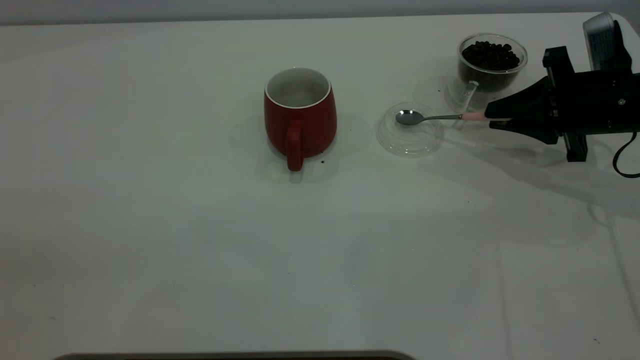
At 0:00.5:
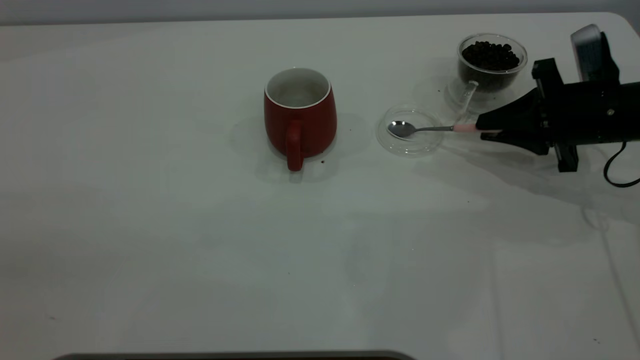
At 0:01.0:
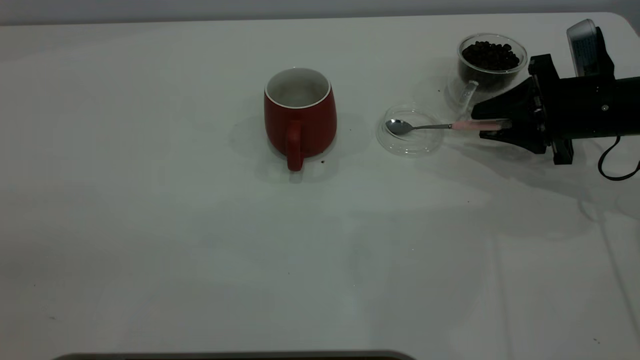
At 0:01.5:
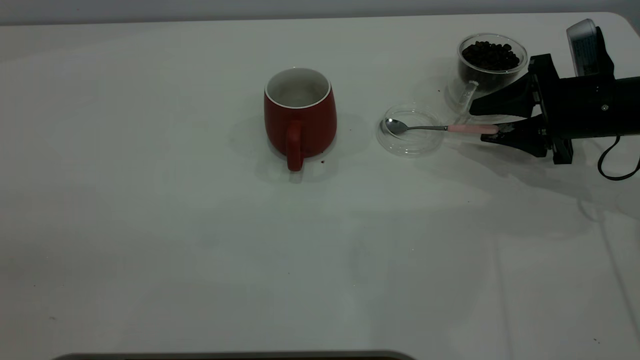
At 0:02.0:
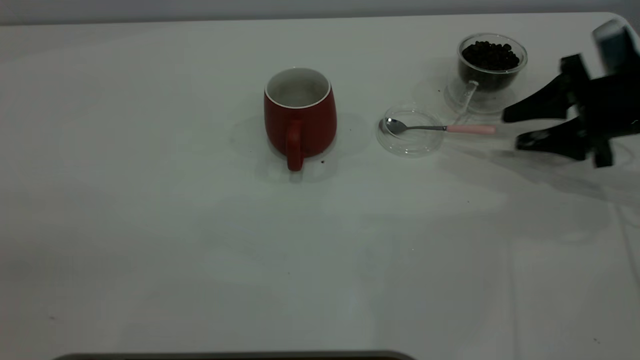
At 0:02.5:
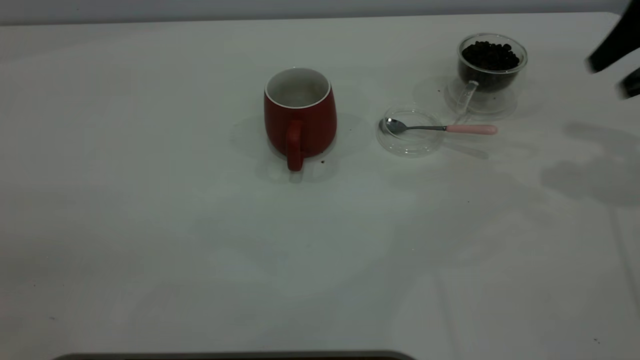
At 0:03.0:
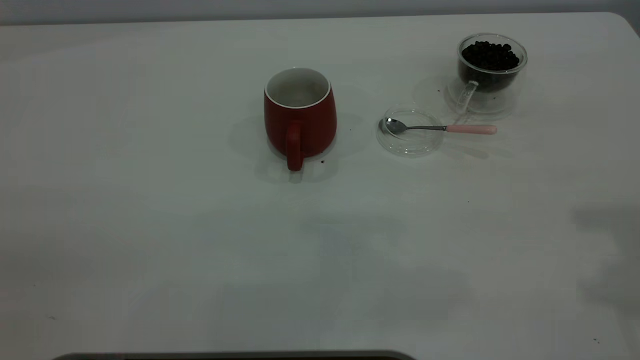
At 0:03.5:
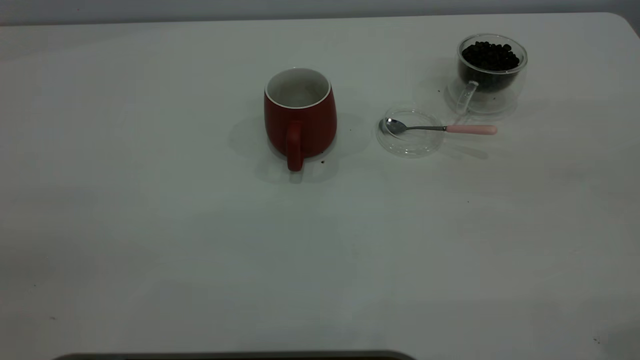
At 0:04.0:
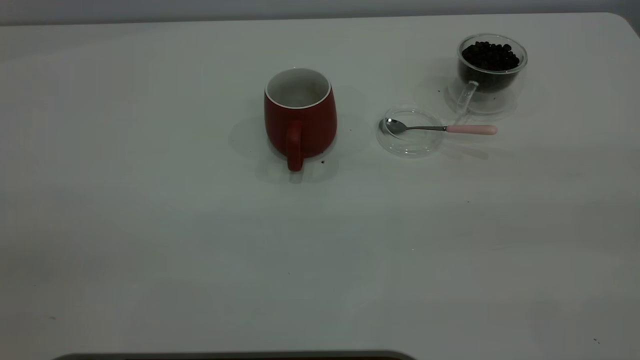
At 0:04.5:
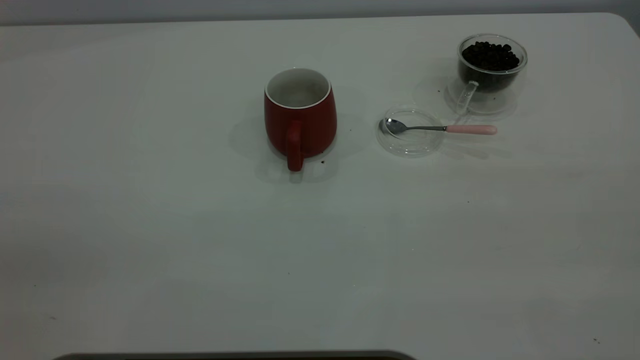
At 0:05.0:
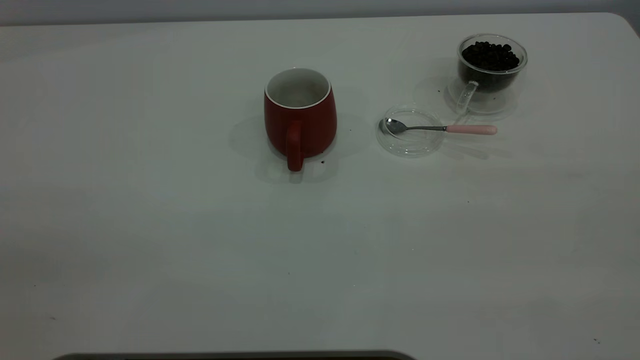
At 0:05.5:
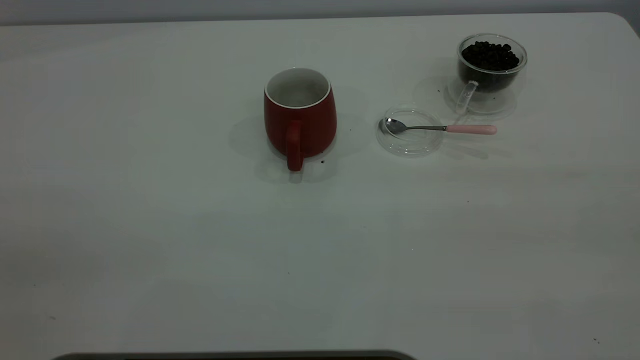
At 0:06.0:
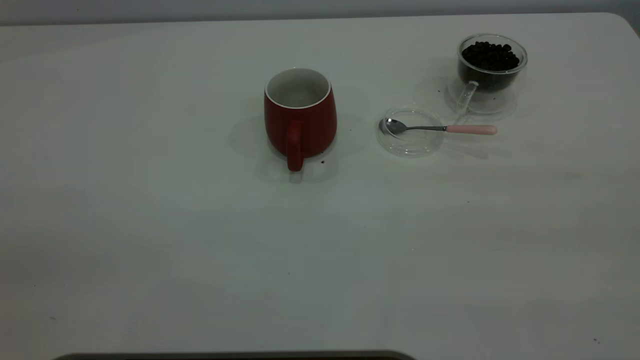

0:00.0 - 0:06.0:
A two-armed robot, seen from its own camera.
Task of the whole recording: the left gripper place the red cup in the center of the table, the right gripper take the pink spoon from the cup lid and scoop out the coffee beans from the coffee cup and put them into the red cup, the right gripper put the spoon back into the cup lid.
Step, 0:00.0 - 0:02.0: Place the spoon back in its original place.
0:00.0 - 0:02.0: The right gripper opens up.
0:02.0 - 0:04.0: The right gripper moves backward and upward, roughly 40 cm.

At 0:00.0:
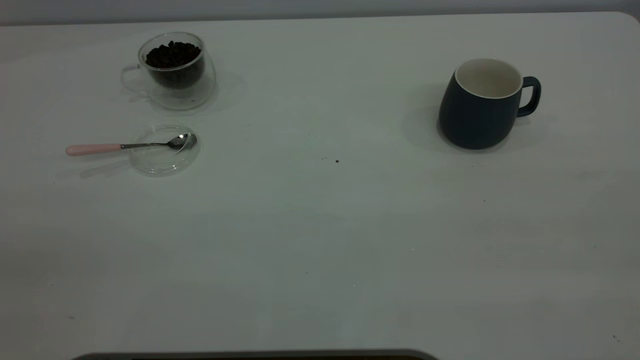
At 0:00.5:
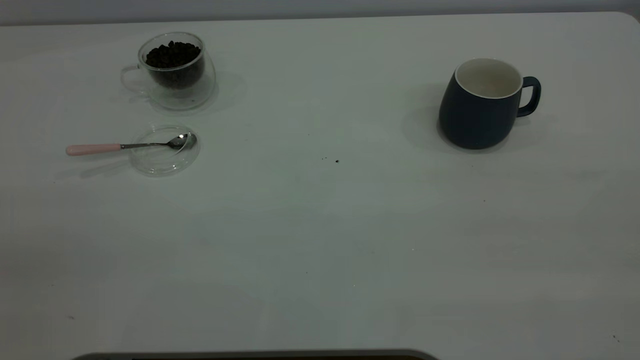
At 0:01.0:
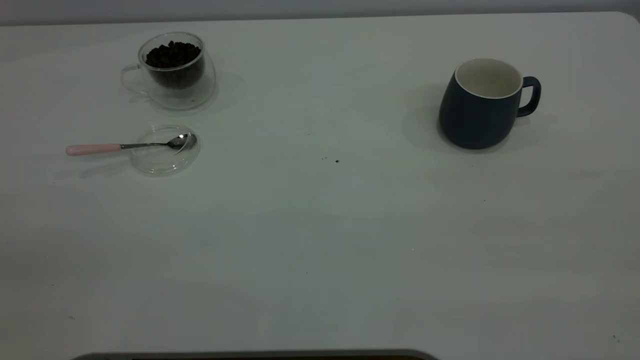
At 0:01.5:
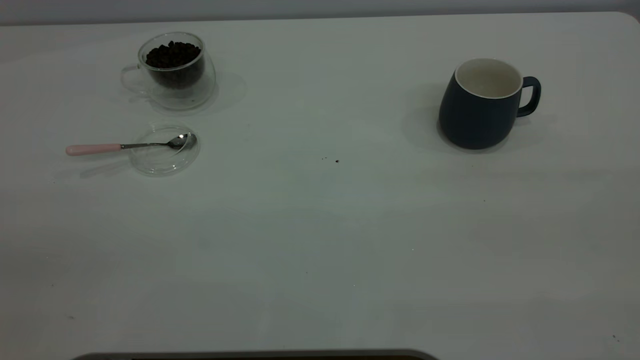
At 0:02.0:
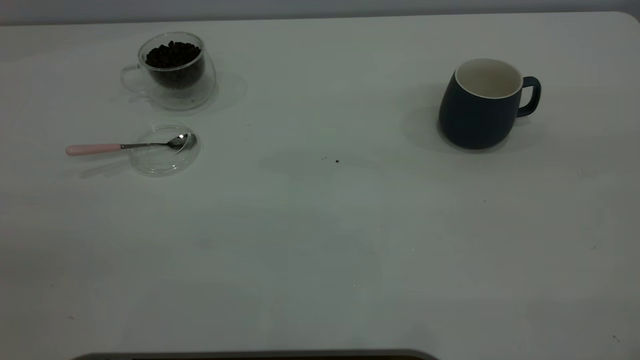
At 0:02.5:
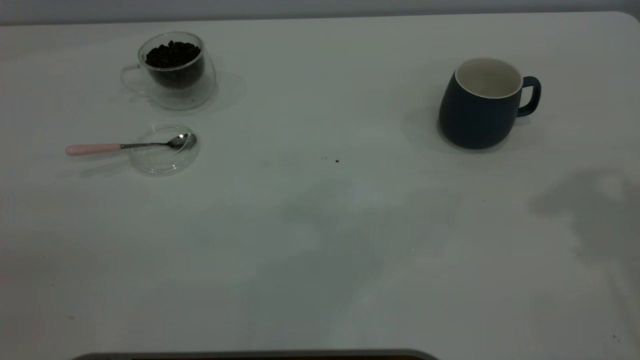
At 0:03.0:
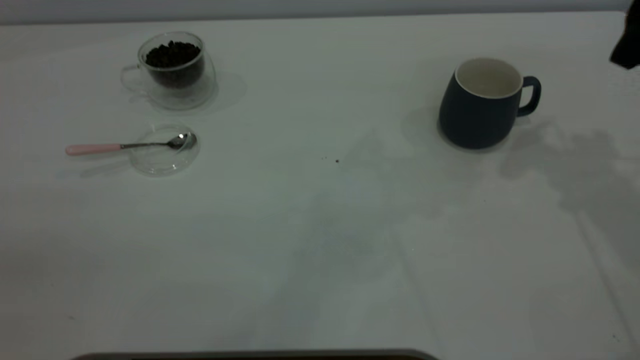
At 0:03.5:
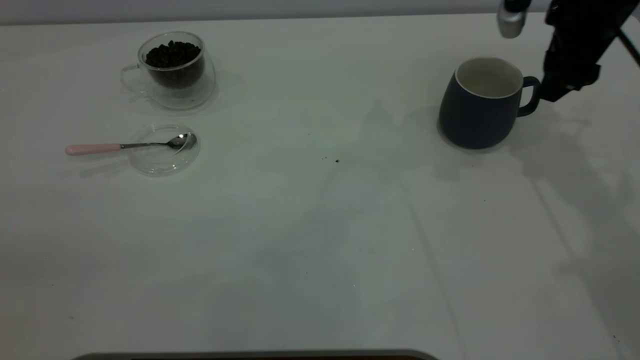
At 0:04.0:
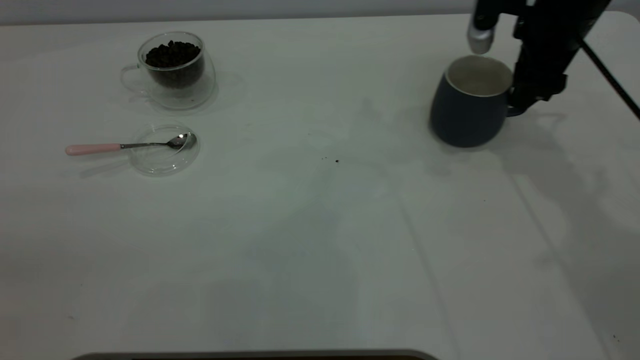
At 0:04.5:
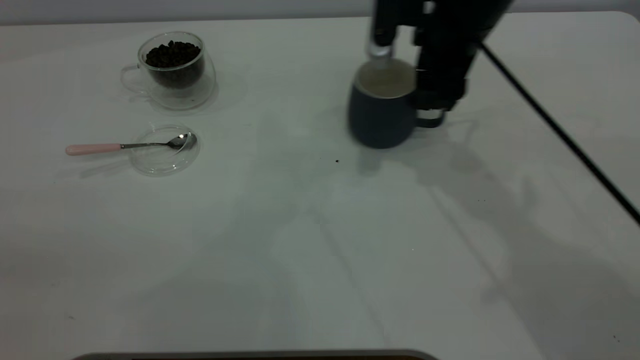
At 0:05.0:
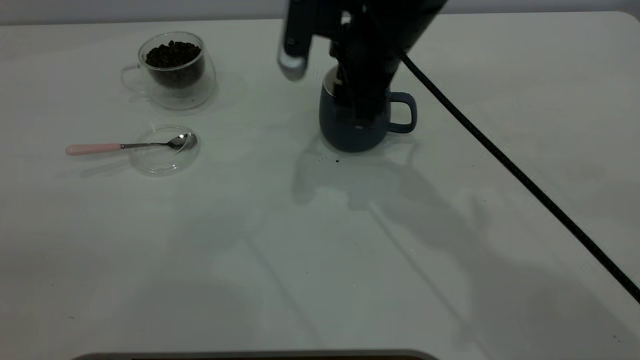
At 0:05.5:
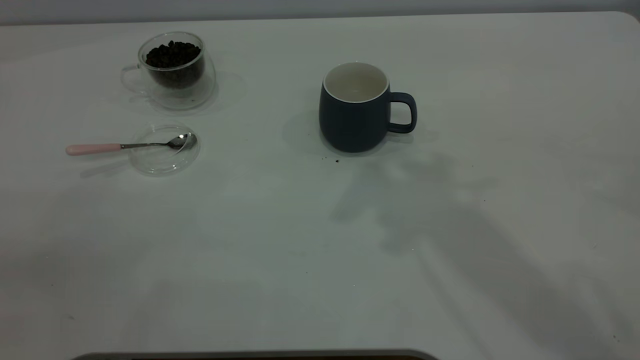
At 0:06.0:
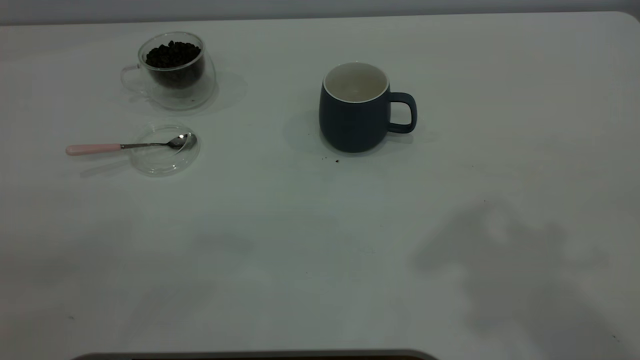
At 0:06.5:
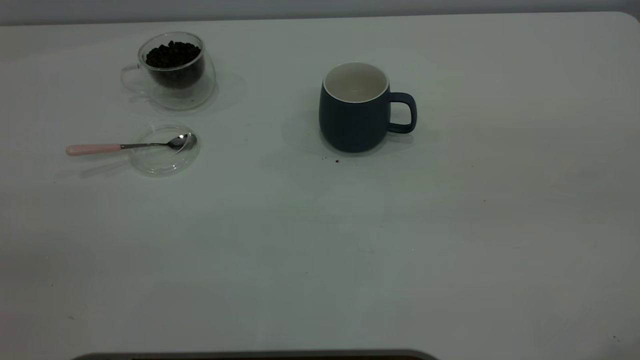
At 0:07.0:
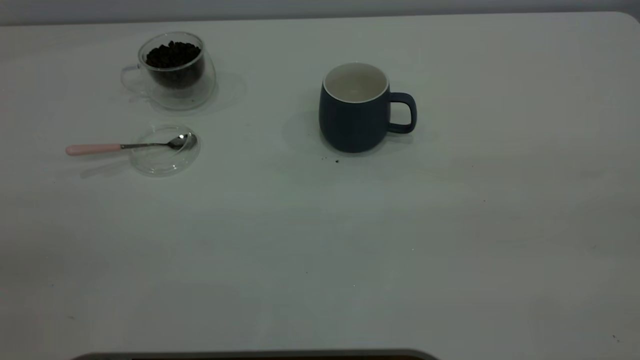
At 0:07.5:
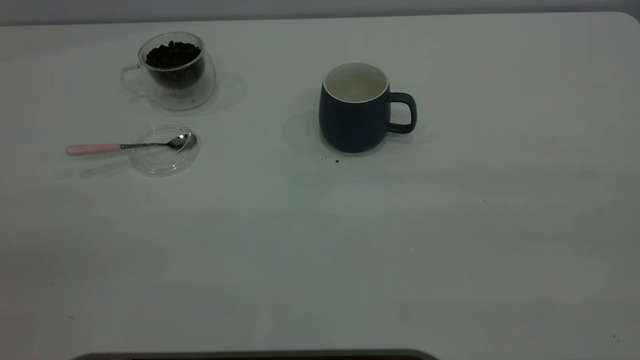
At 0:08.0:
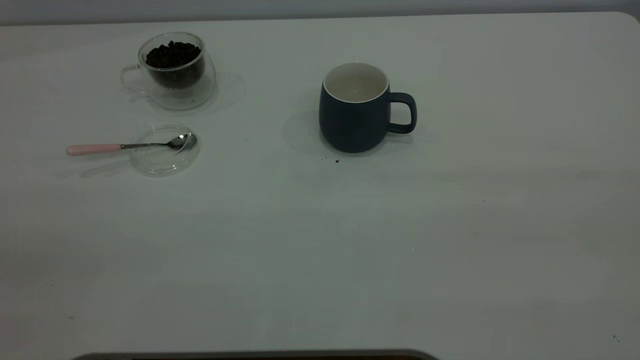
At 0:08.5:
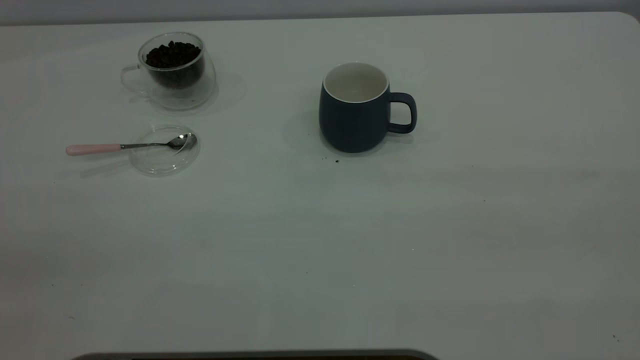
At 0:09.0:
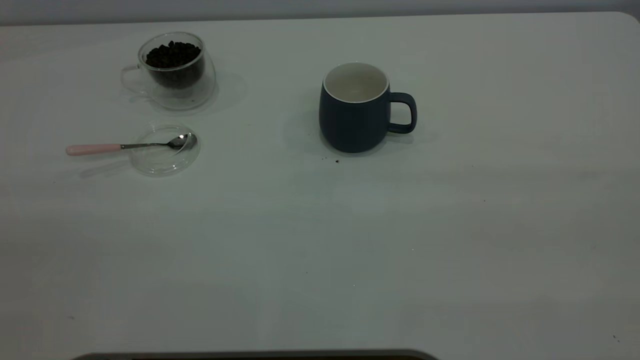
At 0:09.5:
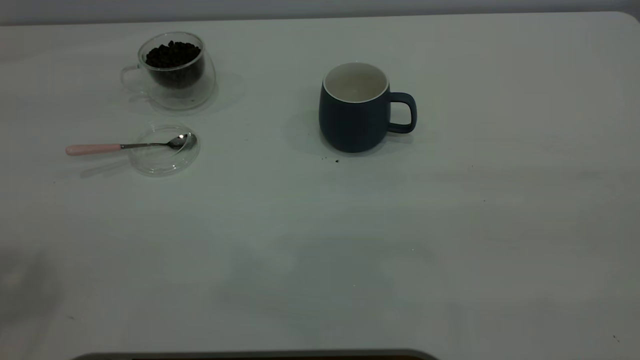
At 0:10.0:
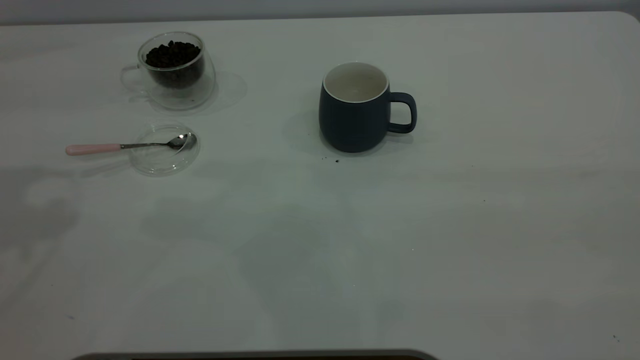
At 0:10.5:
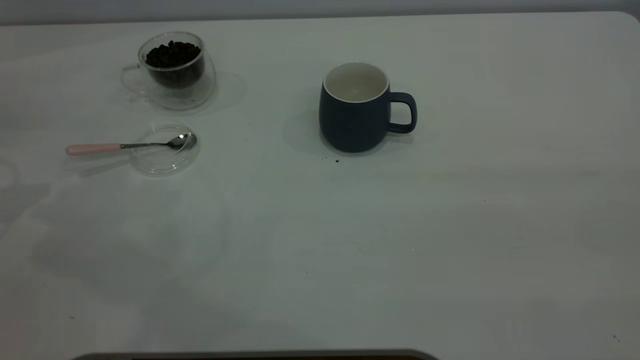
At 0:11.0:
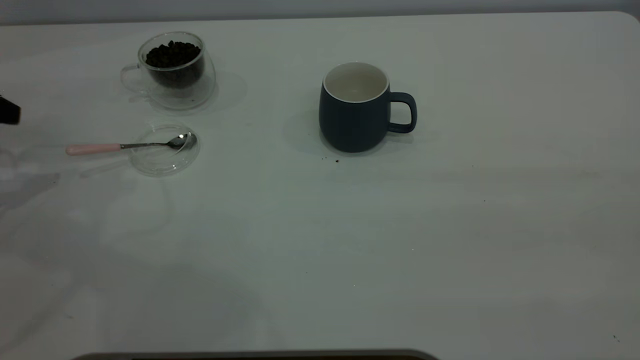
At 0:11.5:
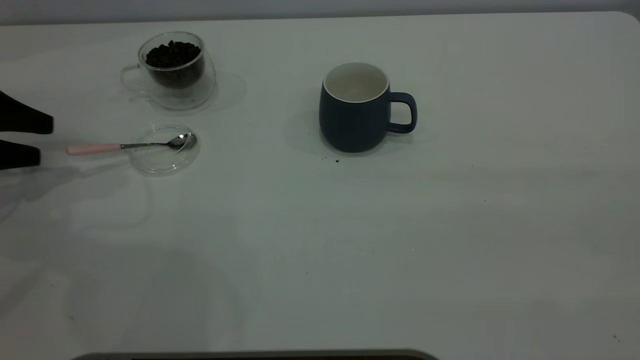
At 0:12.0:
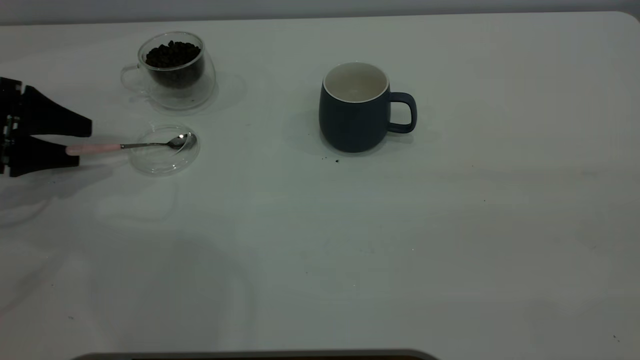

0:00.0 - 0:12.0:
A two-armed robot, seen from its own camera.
Task of the whole recording: the right gripper place the grey cup in the center of the table, the left gripper take the pink spoon from the cup lid and scoop out the coffee beans from the coffee cup and put them into the grey cup, the left gripper put the spoon back into the cup lid.
Step, 0:00.0 - 0:05.0: Move the cup to the center of view.
0:02.0 - 0:04.0: The right gripper heads forward and downward, covering some 40 cm.
0:04.0 - 0:06.0: The right gripper moves upward and backward, about 40 cm.
0:10.0 - 0:12.0: The left gripper heads downward, covering some 25 cm.

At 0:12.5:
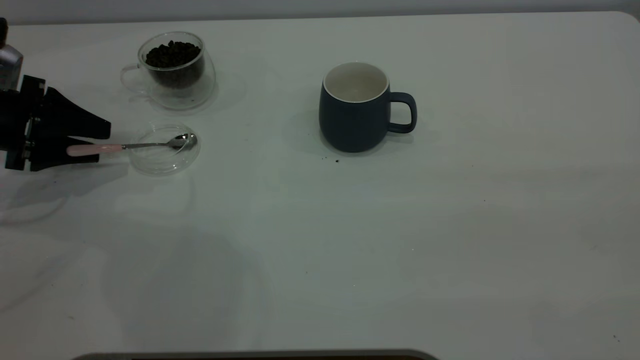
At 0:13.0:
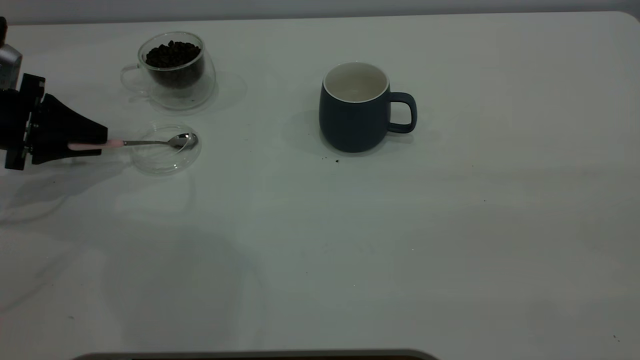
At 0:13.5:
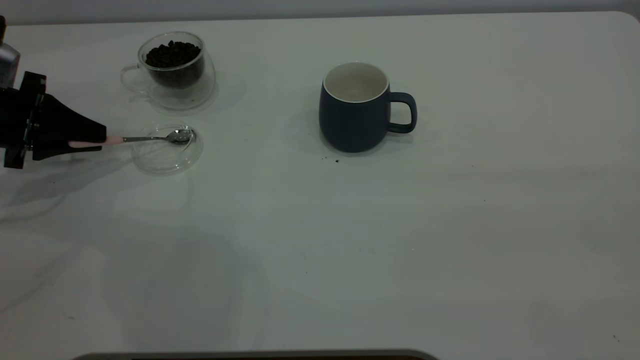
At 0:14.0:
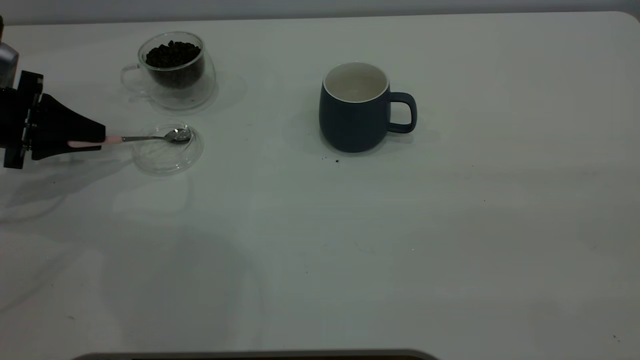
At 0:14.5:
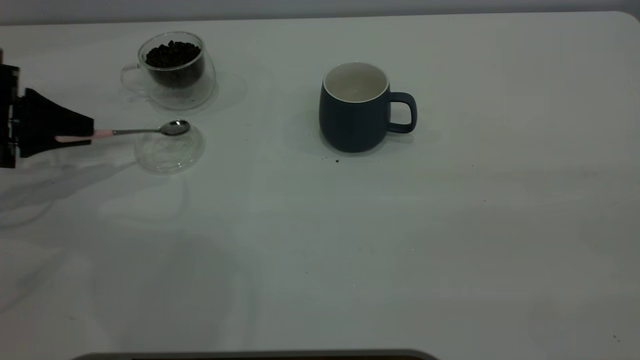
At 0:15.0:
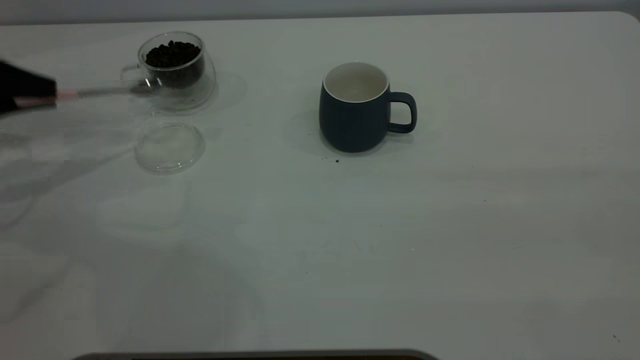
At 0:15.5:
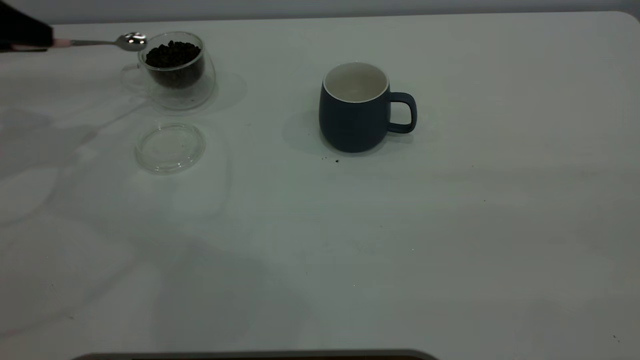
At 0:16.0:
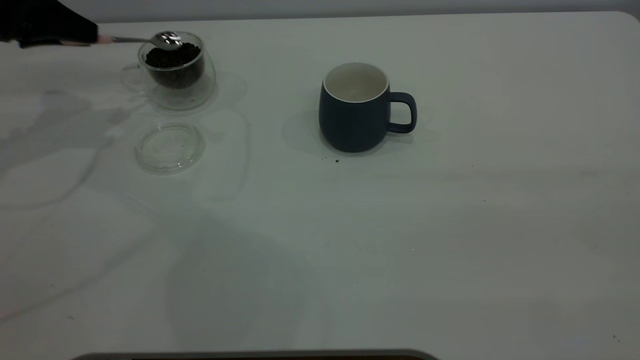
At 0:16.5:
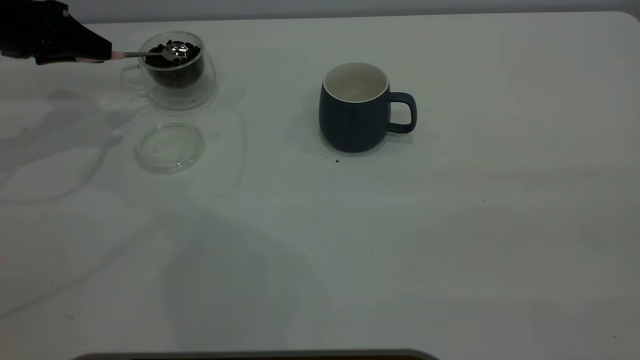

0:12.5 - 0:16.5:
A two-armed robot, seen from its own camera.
Task of the whole recording: the right gripper place the grey cup in the center of the table, the left gripper take the pink spoon from the cup lid and scoop out the coffee beans from the coffee cup and put them into the grey cup, the left gripper put the spoon back into the cup lid.
Step, 0:12.5 - 0:14.5: Pick up the spoon.
0:12.5 - 0:14.5: The left gripper closes.
0:14.5 - 0:16.5: The left gripper travels forward and upward by some 10 cm.
